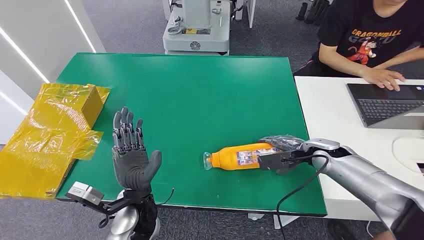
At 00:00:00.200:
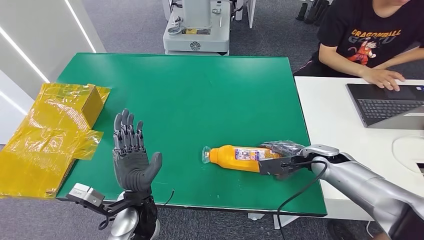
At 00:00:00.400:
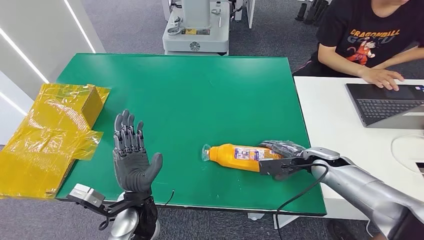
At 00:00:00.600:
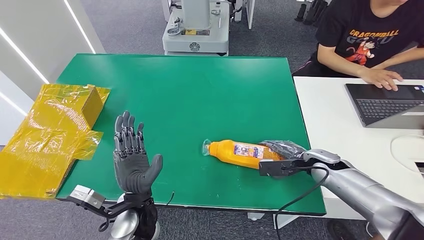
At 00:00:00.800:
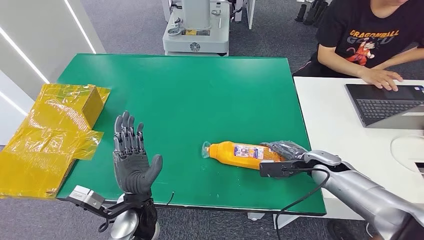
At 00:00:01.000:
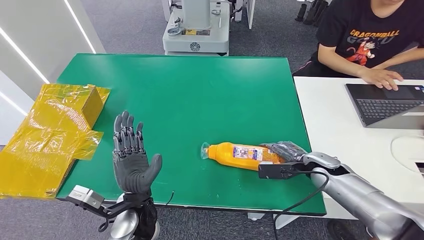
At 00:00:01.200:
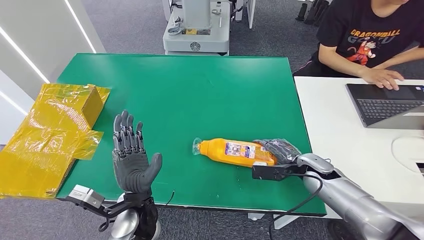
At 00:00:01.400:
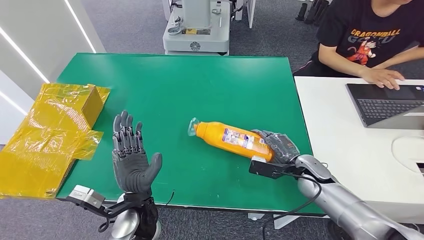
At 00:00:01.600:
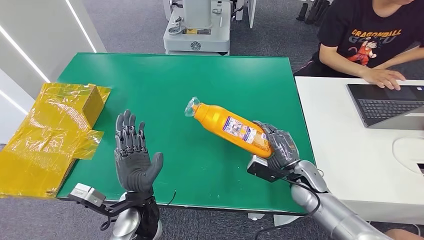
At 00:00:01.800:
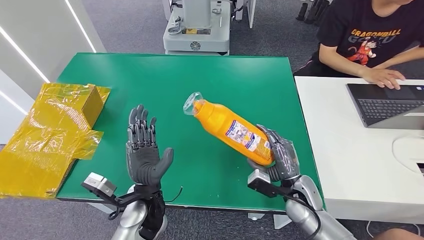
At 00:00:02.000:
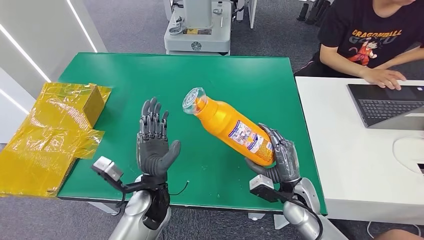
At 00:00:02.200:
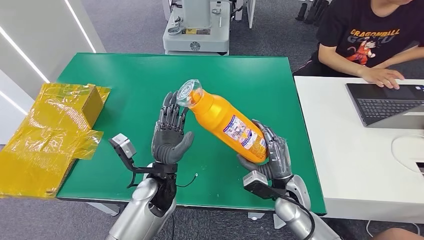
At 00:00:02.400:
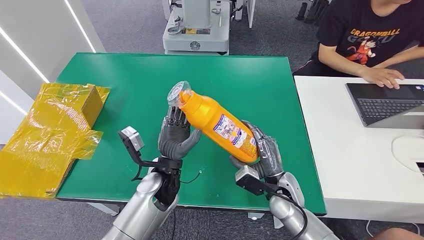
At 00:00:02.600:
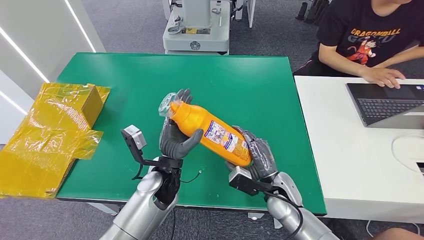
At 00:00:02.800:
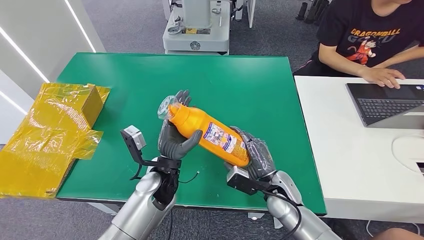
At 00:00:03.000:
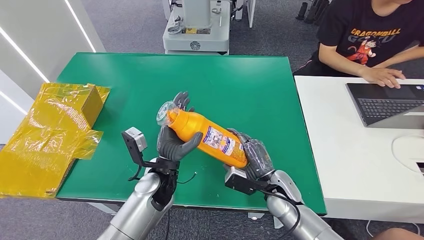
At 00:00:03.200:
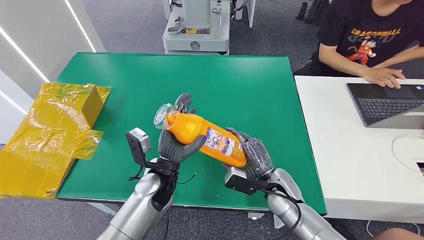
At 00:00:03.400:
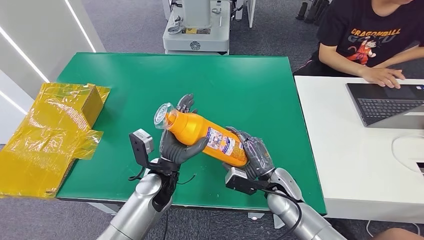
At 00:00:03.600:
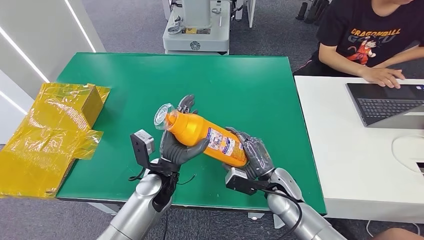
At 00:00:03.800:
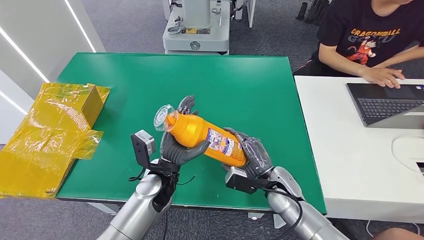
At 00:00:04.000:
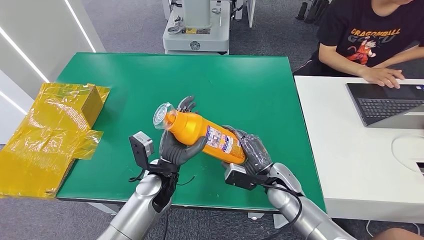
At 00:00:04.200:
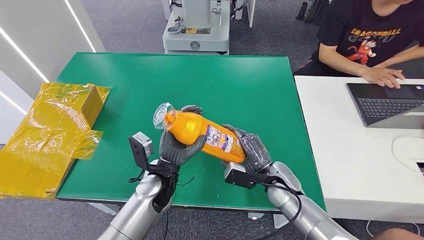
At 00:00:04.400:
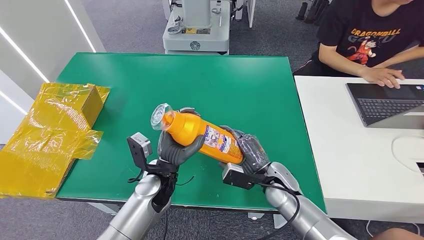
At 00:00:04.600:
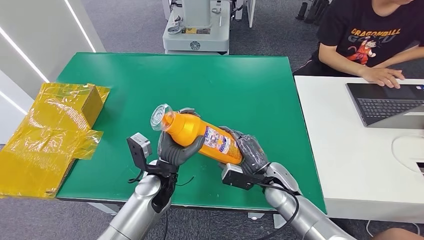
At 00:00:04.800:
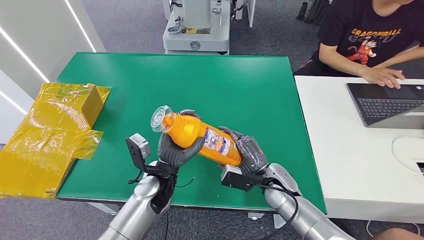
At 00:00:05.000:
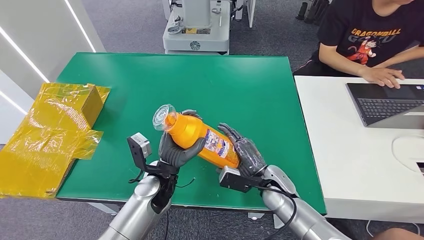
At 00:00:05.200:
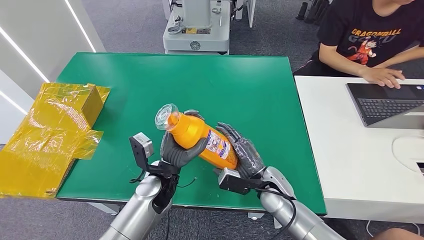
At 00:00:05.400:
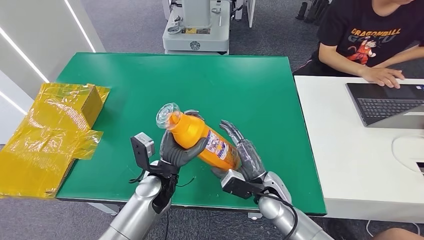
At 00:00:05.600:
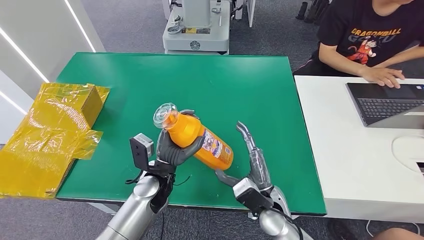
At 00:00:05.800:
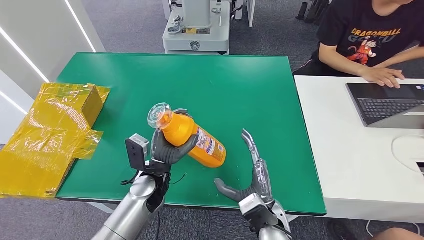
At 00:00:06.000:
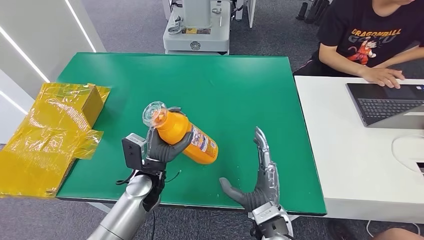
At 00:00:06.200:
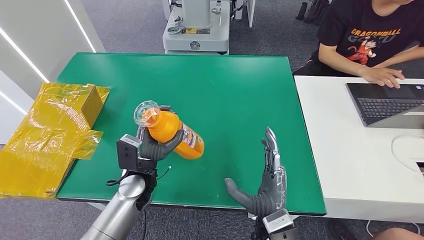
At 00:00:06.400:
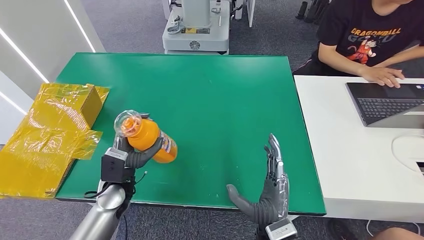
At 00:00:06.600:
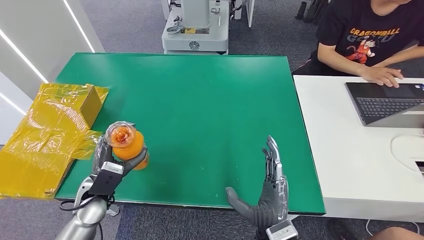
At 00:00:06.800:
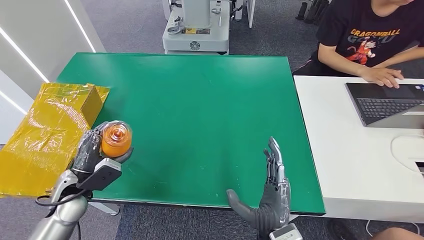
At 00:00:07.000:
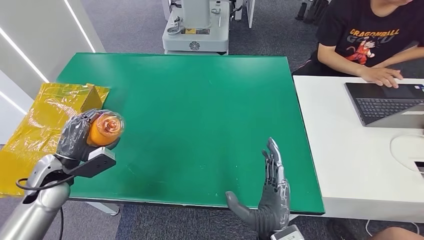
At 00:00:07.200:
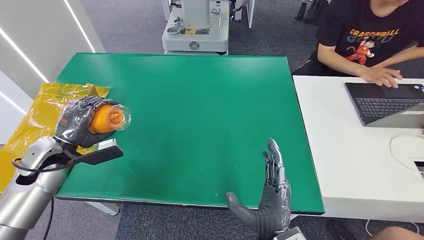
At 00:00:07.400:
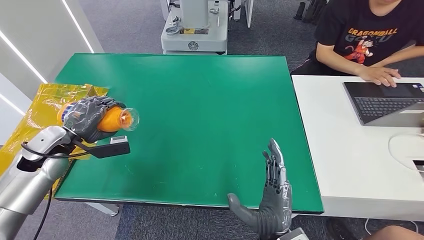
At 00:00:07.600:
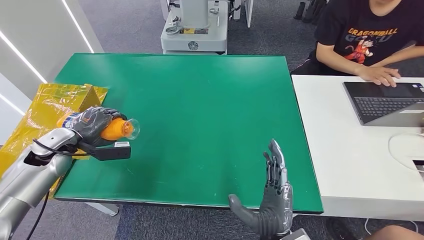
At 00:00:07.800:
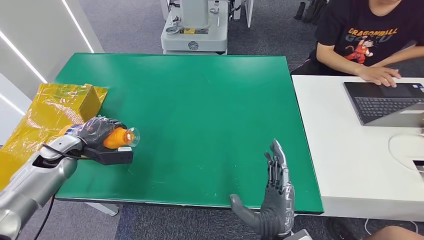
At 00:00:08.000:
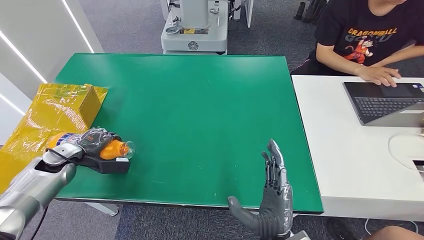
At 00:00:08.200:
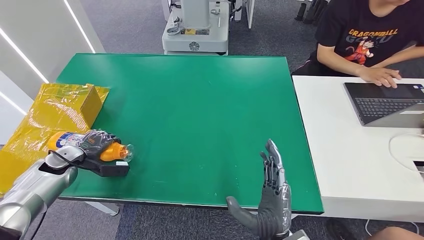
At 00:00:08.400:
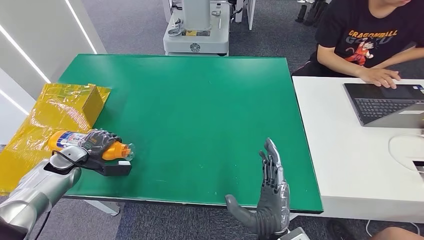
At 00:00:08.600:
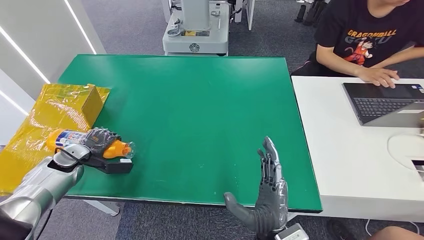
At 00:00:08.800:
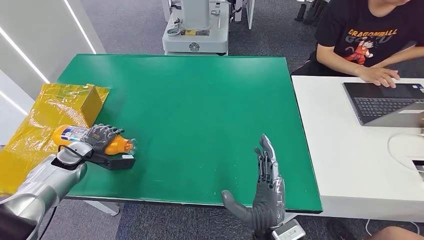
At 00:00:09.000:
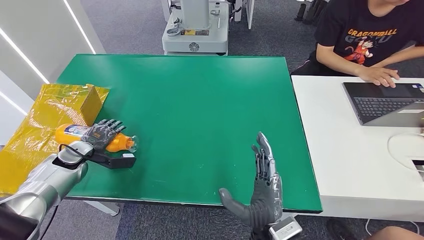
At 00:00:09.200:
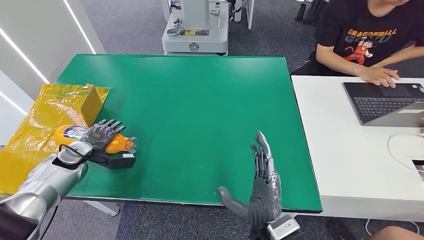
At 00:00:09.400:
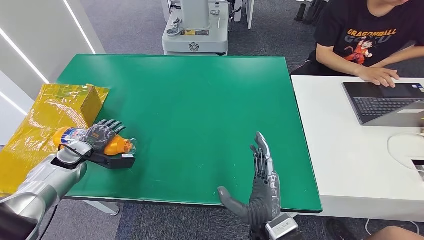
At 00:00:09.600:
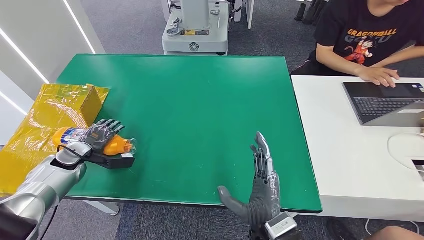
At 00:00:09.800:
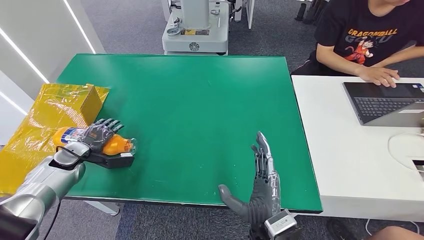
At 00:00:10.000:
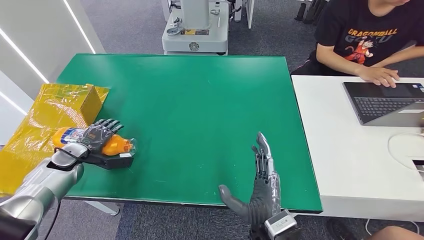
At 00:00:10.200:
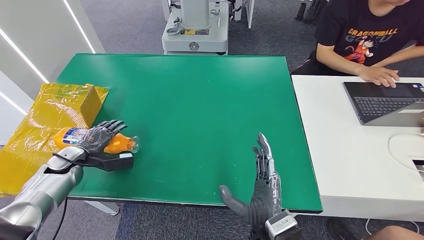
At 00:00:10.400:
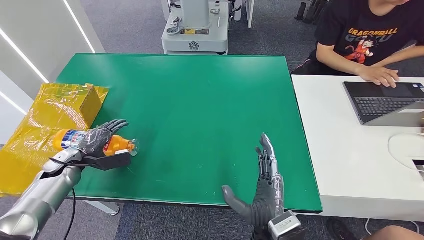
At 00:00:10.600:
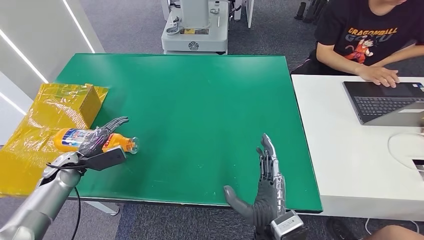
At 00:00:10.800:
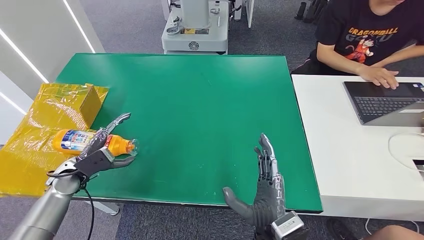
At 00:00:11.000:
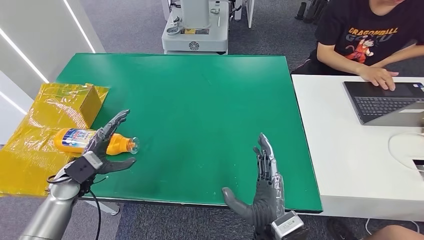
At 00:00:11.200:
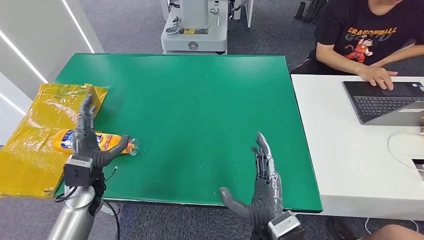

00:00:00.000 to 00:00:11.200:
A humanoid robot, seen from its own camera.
Step, 00:00:00.000 to 00:00:03.000: Pick up the bottle from the table.
Step, 00:00:03.400 to 00:00:10.000: Turn the bottle to the front side.
00:00:01.600 to 00:00:03.200: The left hand goes some 5 cm forward; the right hand travels to the left by approximately 10 cm.
00:00:03.200 to 00:00:04.800: There are only small adjustments of the hands.
00:00:04.800 to 00:00:06.400: The left hand is displaced to the left by approximately 10 cm; the right hand heads backward, covering some 15 cm.
00:00:06.400 to 00:00:08.000: The left hand is displaced to the left by about 20 cm.
00:00:08.000 to 00:00:09.600: The hands make only small movements.
00:00:09.600 to 00:00:11.200: The left hand travels to the right and backward by approximately 15 cm.
